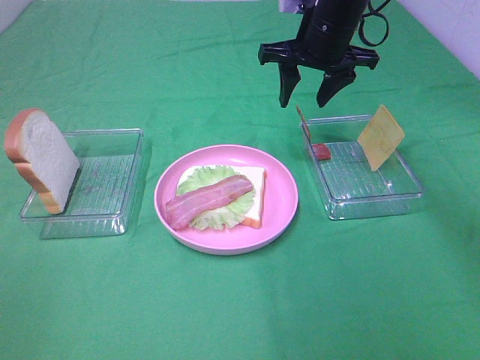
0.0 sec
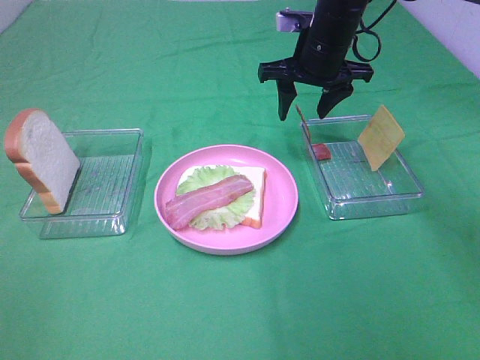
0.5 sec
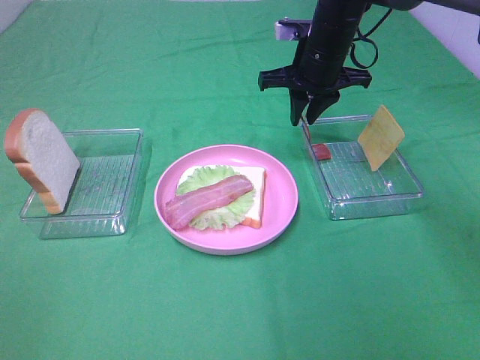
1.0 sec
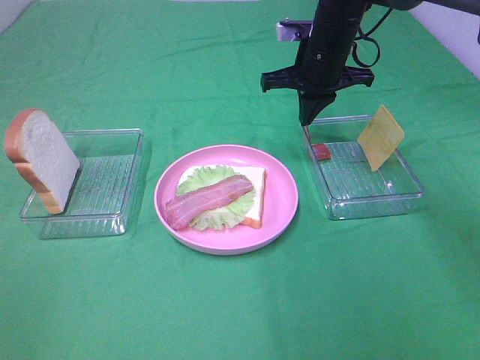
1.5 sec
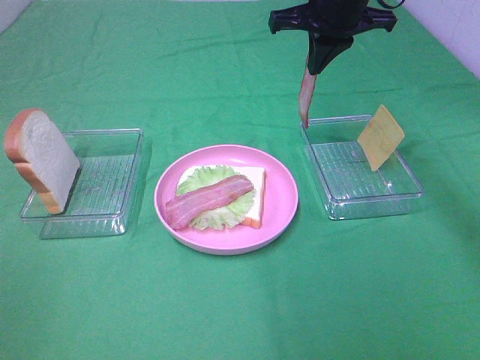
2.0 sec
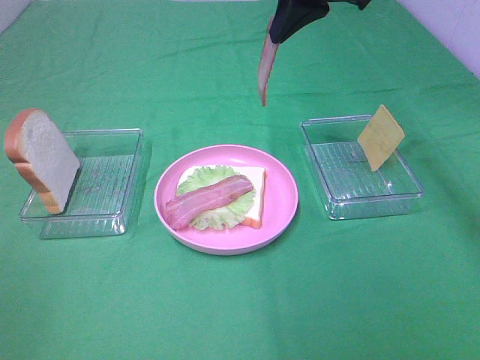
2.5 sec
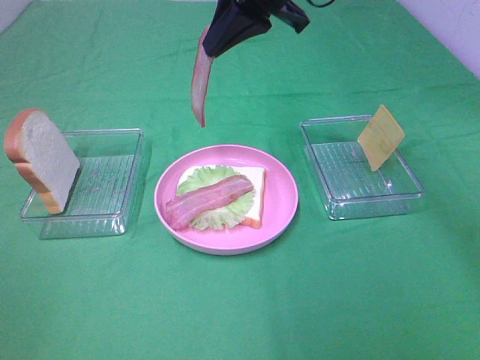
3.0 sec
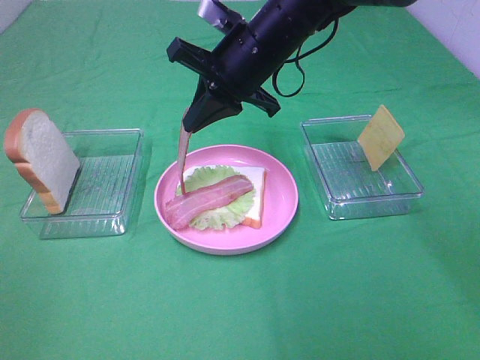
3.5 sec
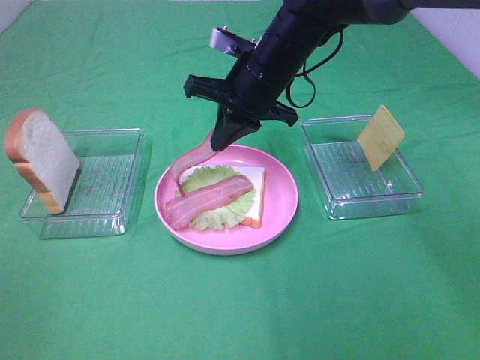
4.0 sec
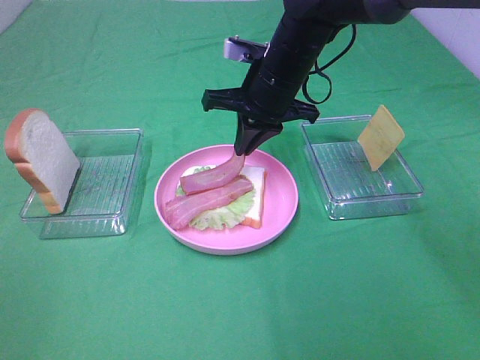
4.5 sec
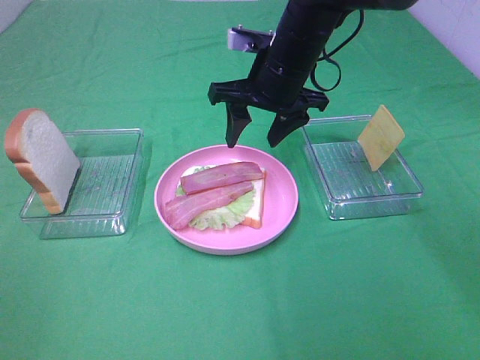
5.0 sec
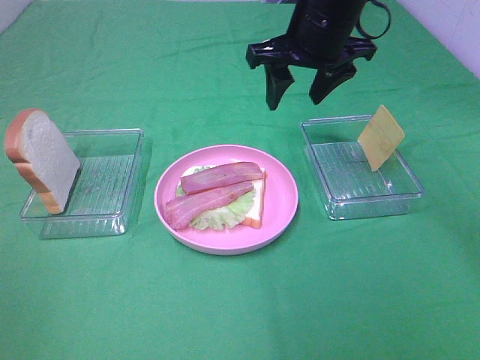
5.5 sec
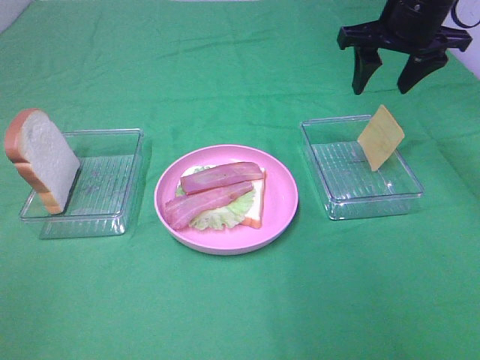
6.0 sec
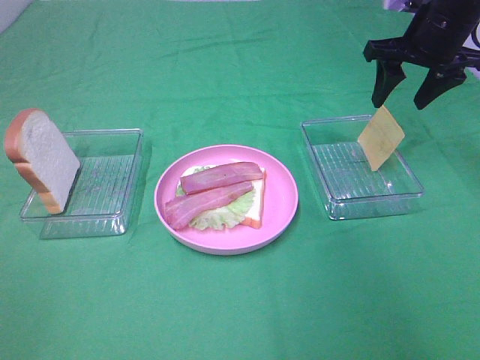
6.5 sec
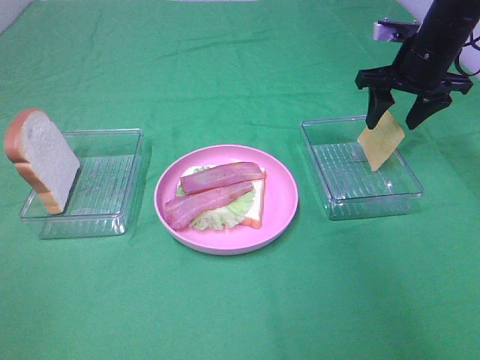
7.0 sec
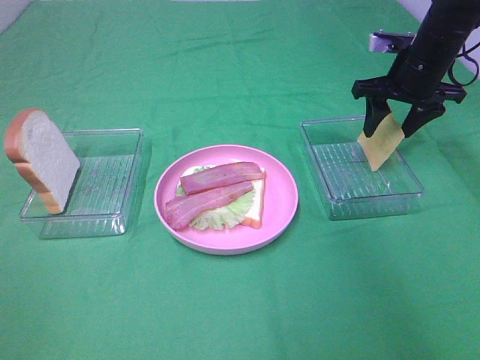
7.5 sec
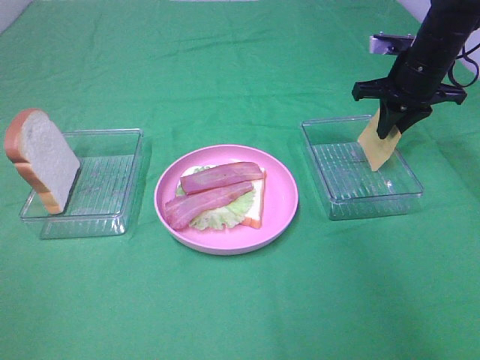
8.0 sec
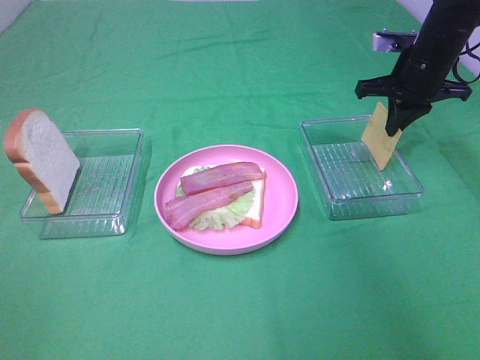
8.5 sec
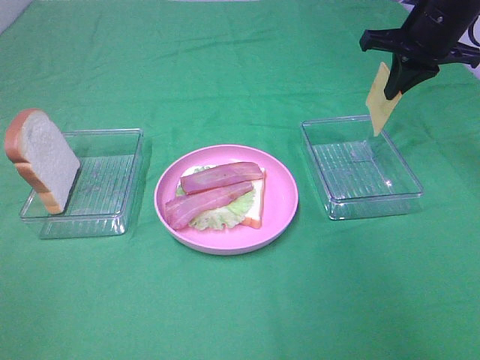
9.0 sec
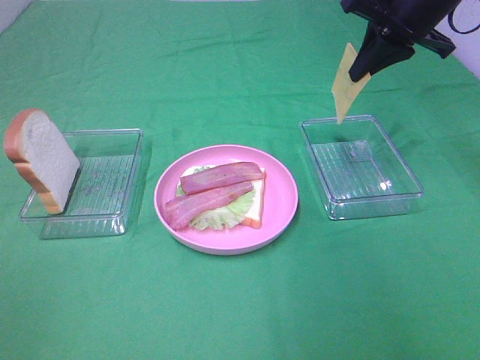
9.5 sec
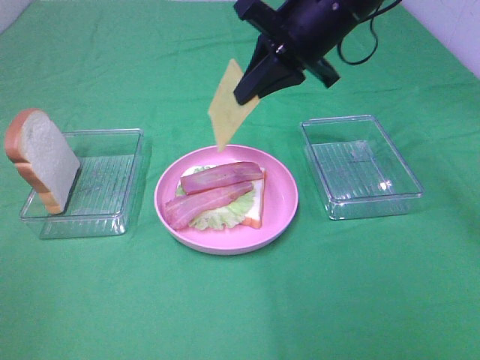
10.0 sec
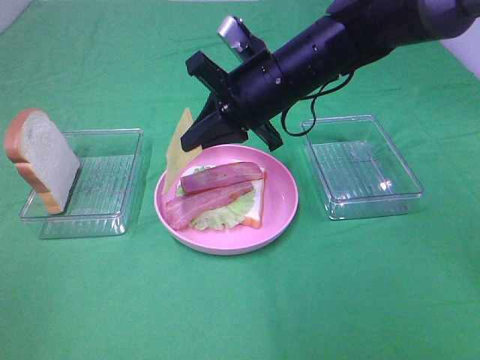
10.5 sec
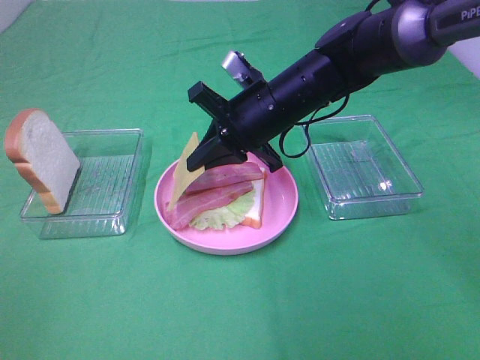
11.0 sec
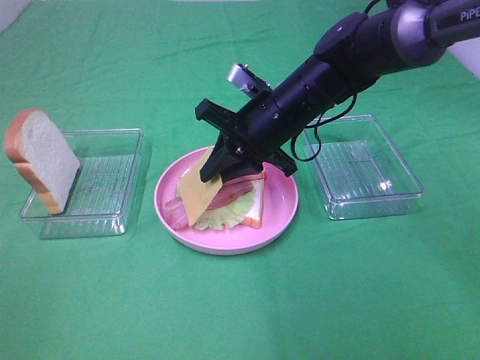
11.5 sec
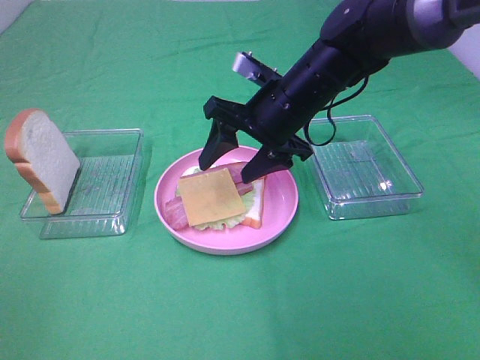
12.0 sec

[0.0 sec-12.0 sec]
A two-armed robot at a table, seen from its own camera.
Task of the whole recording: Make sandwiches.
Step, 2.0 sec to 4.5 sec: Right hand:place bacon on bacon.
Step, 5.0 sec to 8.5 sec: Right hand:grab the cheese slice.
0.0 sec to 2.0 sec: The right gripper ends up some 5 cm from where it was, and closes its fingers.
2.0 sec to 4.0 sec: The right gripper heads downward and to the left, covering about 10 cm.
4.0 sec to 6.0 sec: The right gripper travels to the right and upward by about 20 cm, and opens its fingers.
6.0 sec to 8.0 sec: The right gripper shifts some 10 cm downward, and closes its fingers.
8.0 sec to 10.0 sec: The right gripper is displaced to the left, upward and backward by roughly 20 cm.
10.0 sec to 12.0 sec: The right gripper heads downward, covering roughly 10 cm, and opens.

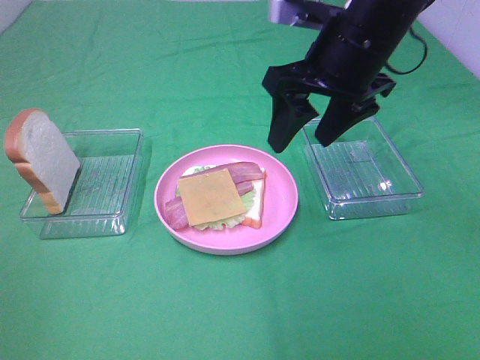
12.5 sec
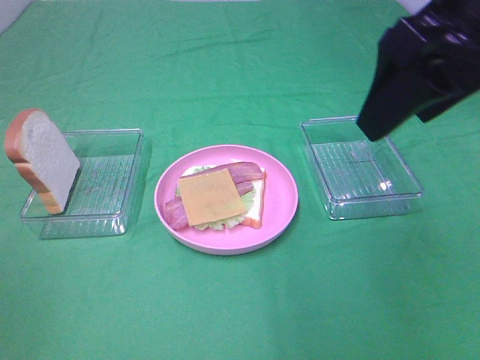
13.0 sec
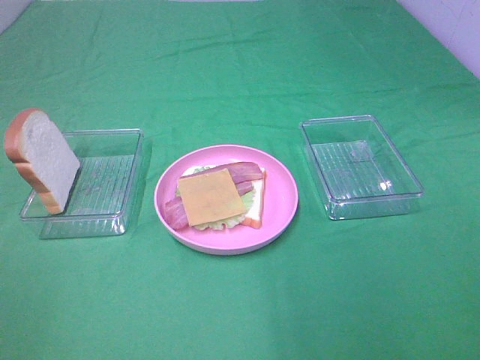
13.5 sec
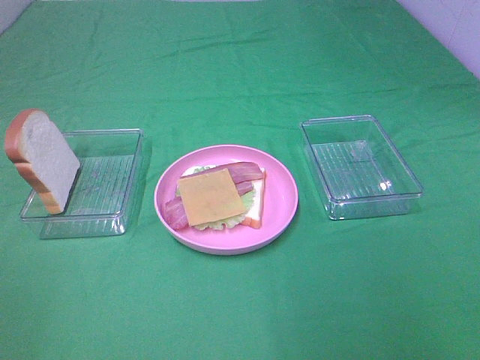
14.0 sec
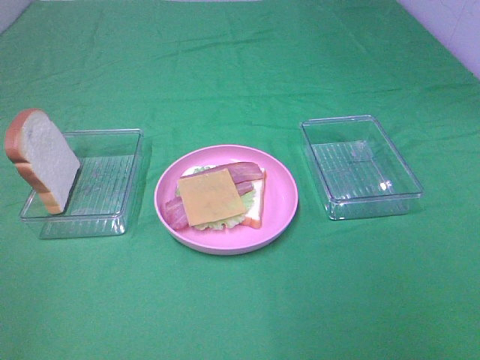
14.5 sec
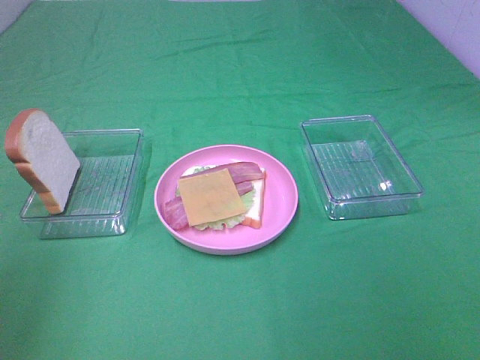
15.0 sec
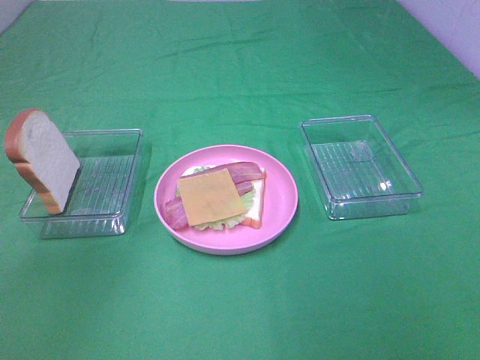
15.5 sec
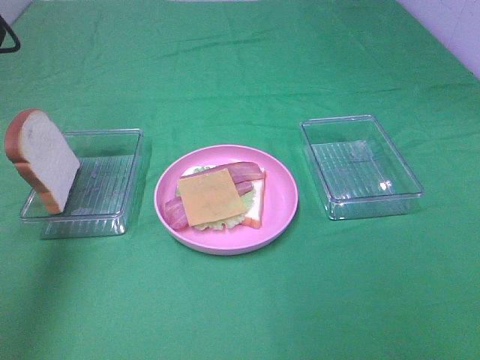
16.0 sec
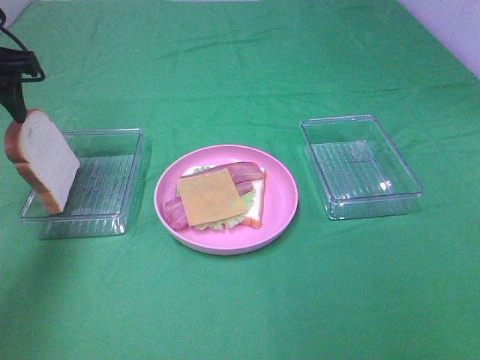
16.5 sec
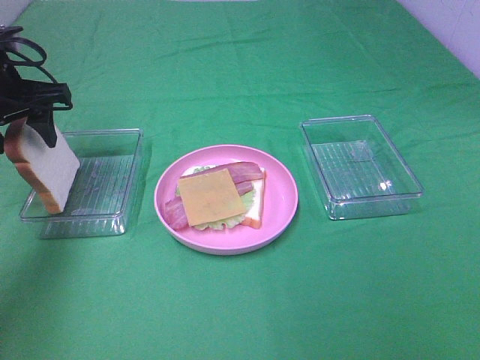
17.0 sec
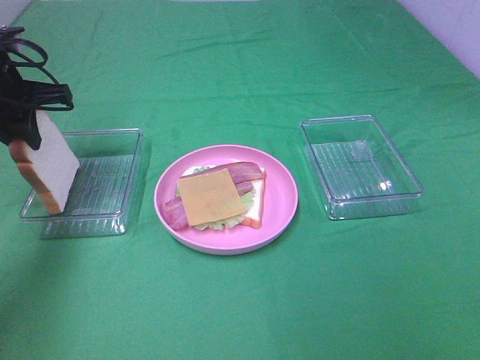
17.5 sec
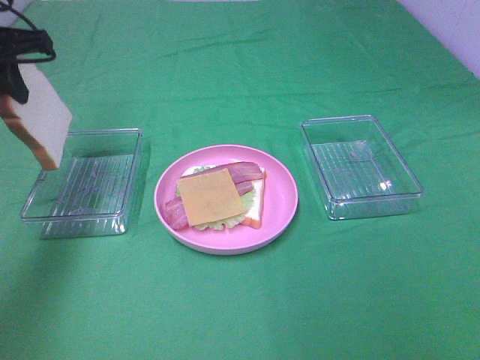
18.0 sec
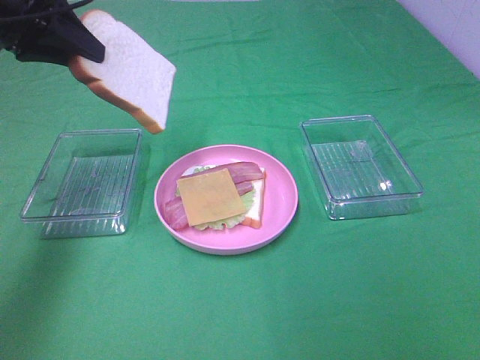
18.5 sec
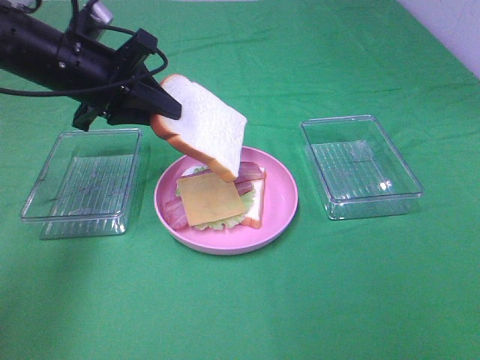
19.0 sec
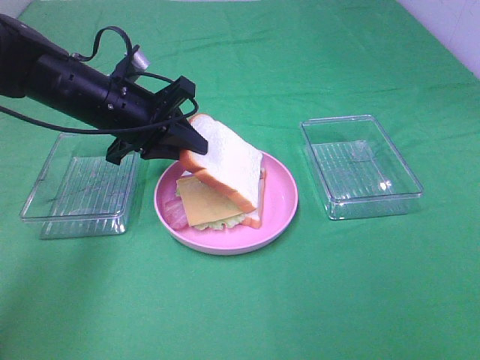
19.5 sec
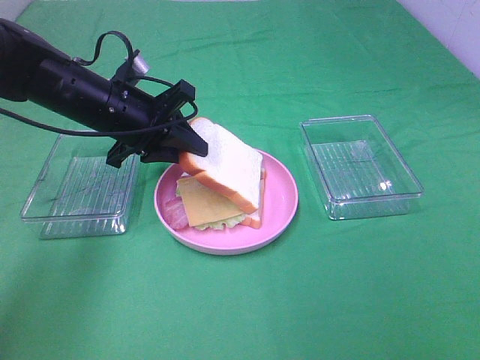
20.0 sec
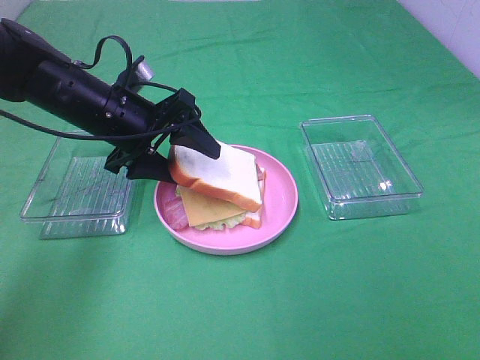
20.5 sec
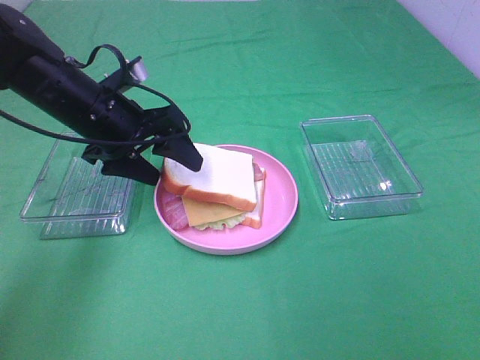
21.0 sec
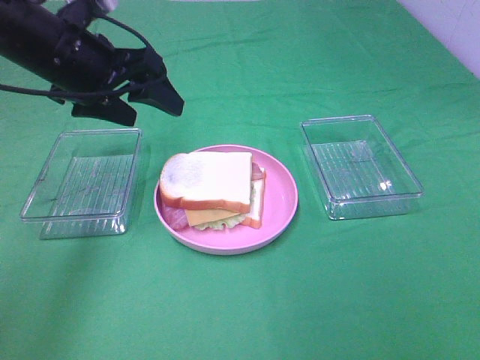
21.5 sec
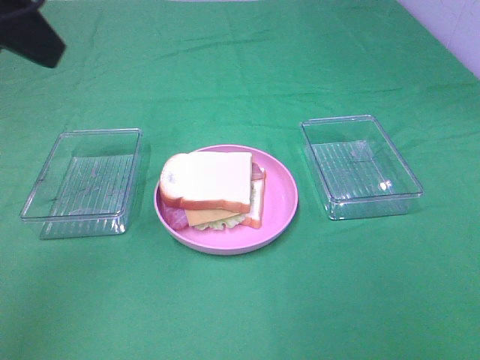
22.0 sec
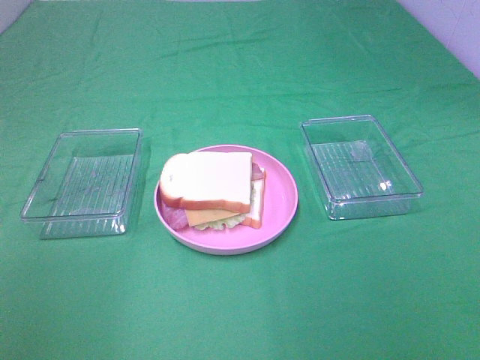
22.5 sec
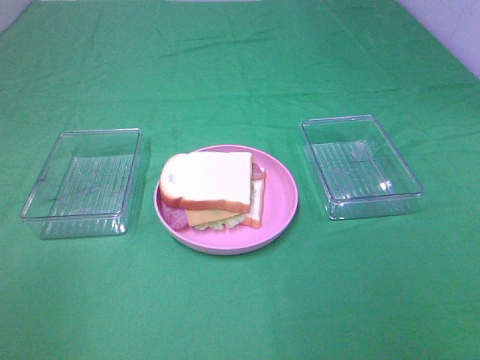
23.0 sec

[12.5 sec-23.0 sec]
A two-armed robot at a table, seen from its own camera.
Task of the whole recording: Make sandwiches.
Step, 12.5 sec to 17.5 sec: Left hand:grab the bread slice.
Step, 18.0 sec to 21.0 sec: Left hand:place the bread slice on the cheese slice.
12.5 sec to 14.5 sec: The right gripper is displaced backward and to the right by some 40 cm.
14.5 sec to 16.5 sec: The left gripper moves forward, some 35 cm.
16.5 sec to 19.0 sec: The left gripper is displaced to the right by about 10 cm, and closes up.
19.0 sec to 21.0 sec: The left gripper opens up.
21.0 sec to 23.0 sec: The left gripper goes about 35 cm backward.

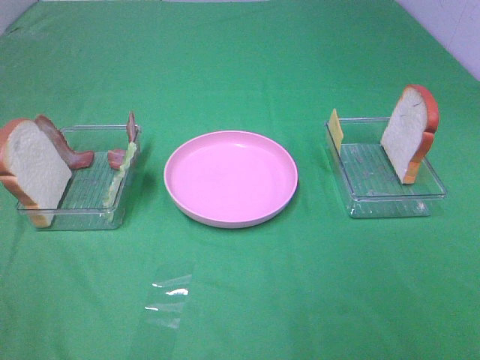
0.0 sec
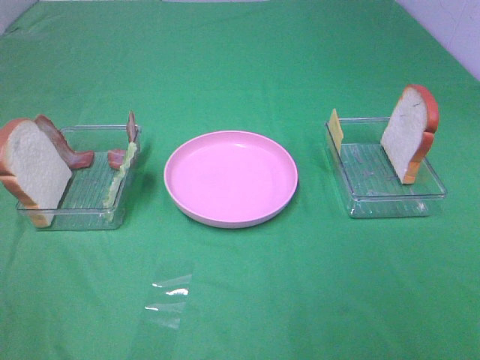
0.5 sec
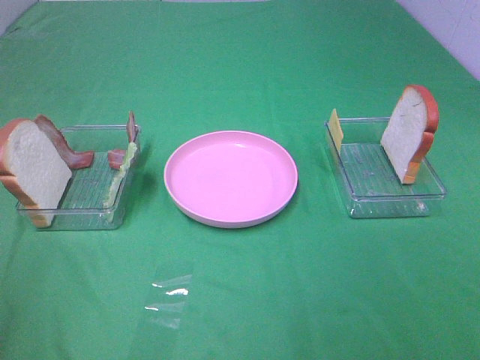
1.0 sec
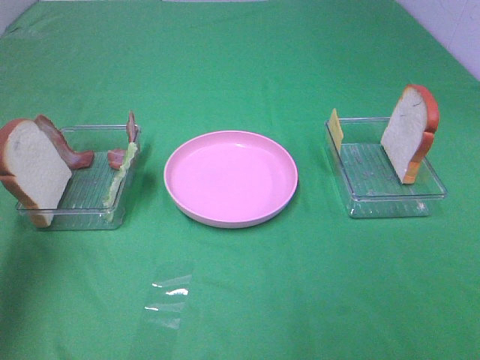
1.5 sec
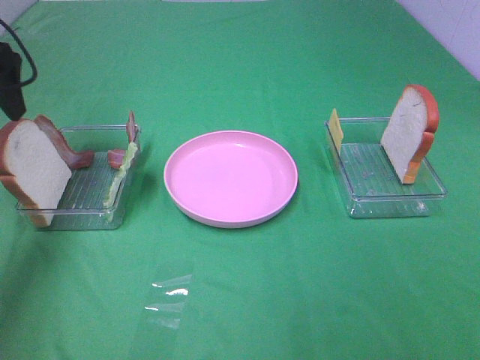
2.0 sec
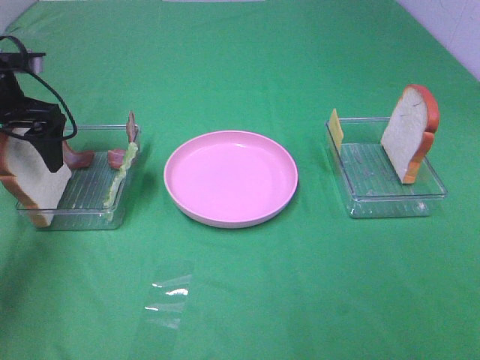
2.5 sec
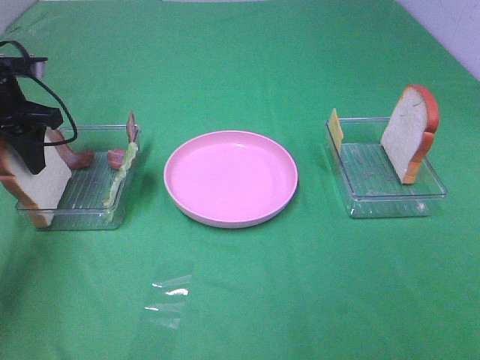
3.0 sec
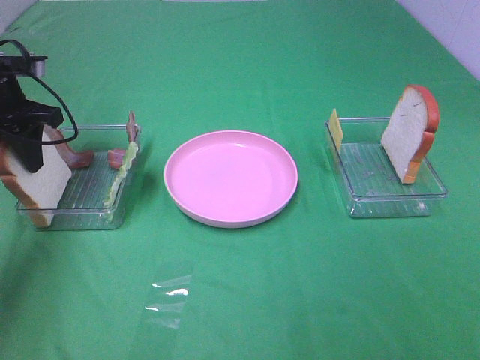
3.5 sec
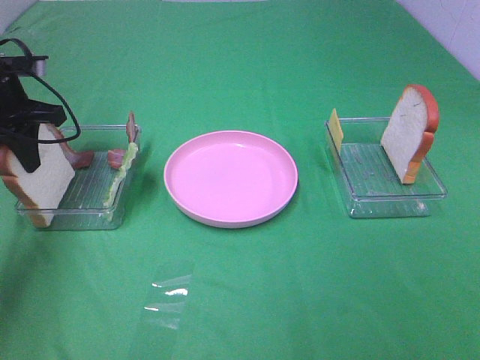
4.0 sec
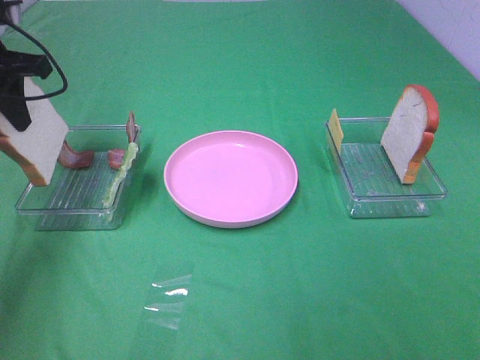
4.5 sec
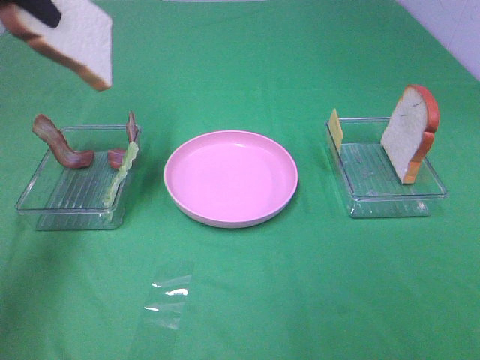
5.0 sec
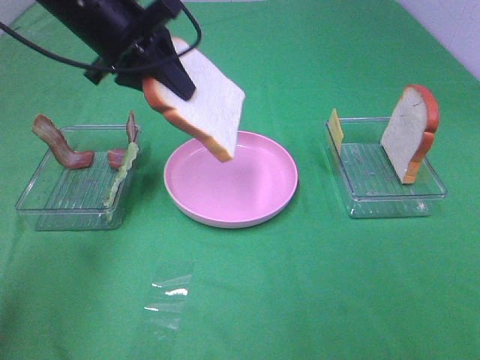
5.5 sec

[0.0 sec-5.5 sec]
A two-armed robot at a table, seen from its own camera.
Task of the whole recording: Make sandwiches.
Step, 0.0 sec to 3.5 sec: Left hand:grab the bread slice.
0.0 sec to 2.0 sec: The left gripper heads forward, covering about 40 cm.
2.0 sec to 3.5 sec: The left gripper travels downward by about 10 cm, and closes.
3.5 sec to 5.5 sec: The left gripper is displaced to the right and upward by approximately 15 cm.
